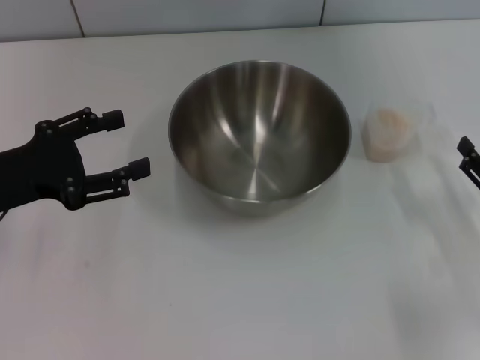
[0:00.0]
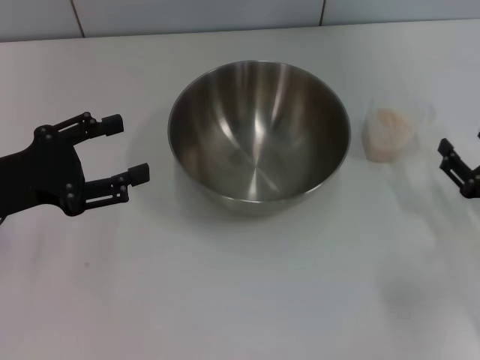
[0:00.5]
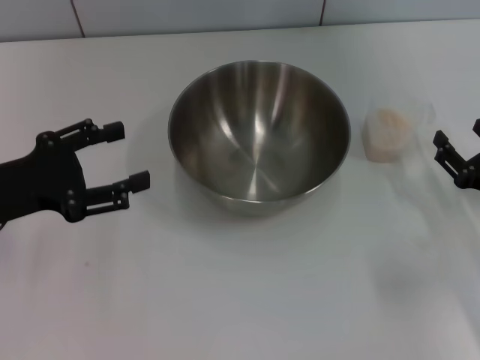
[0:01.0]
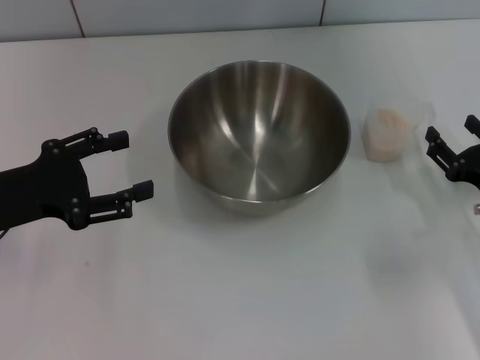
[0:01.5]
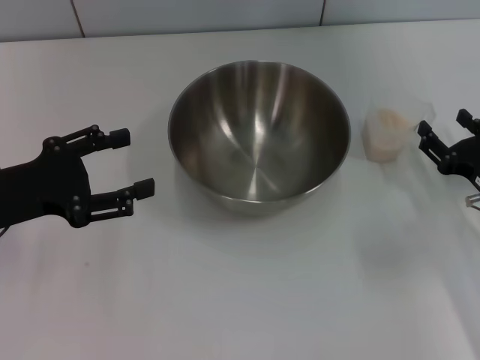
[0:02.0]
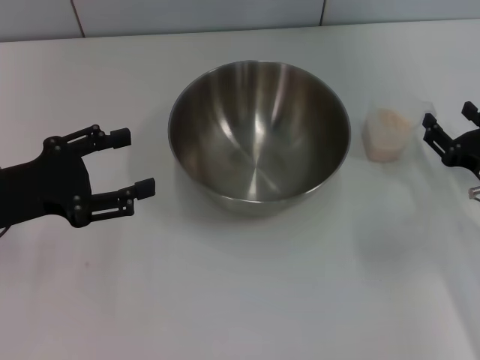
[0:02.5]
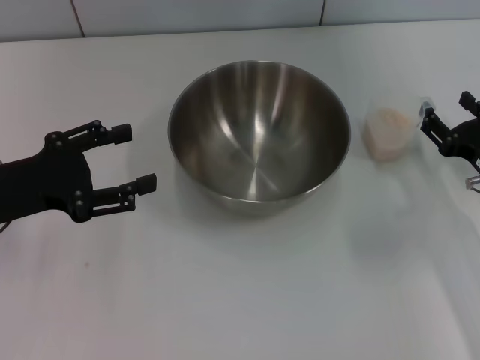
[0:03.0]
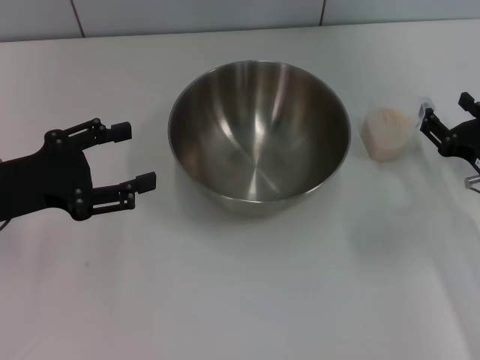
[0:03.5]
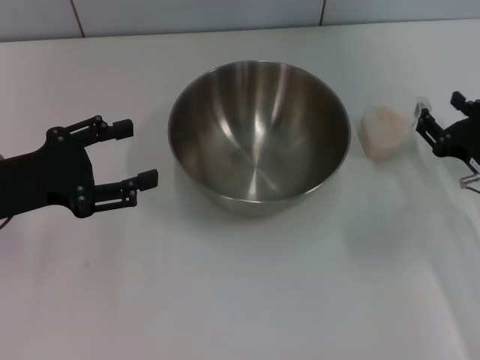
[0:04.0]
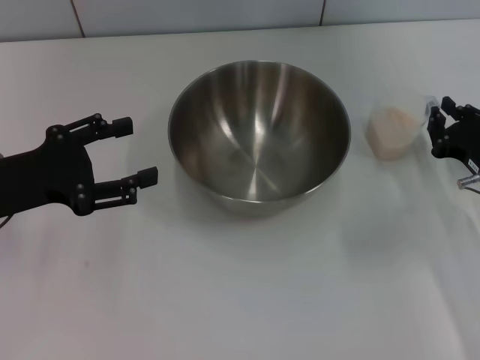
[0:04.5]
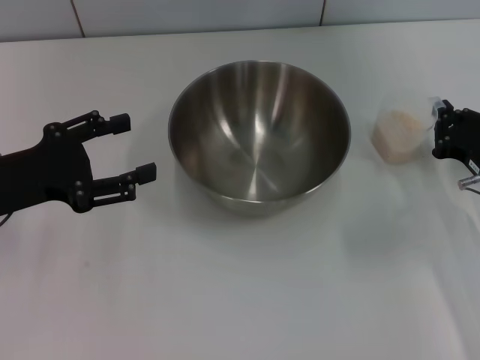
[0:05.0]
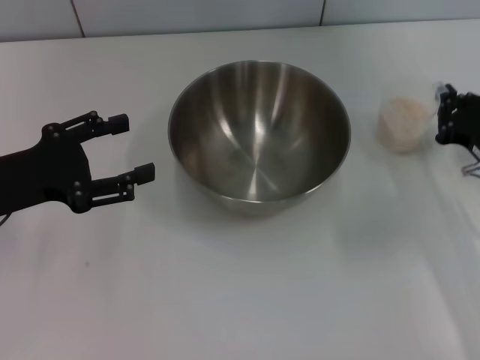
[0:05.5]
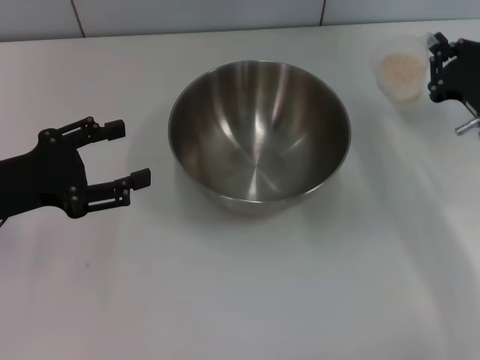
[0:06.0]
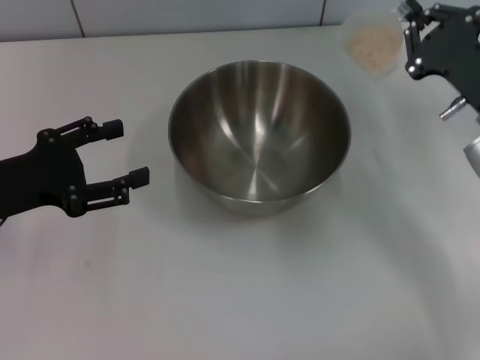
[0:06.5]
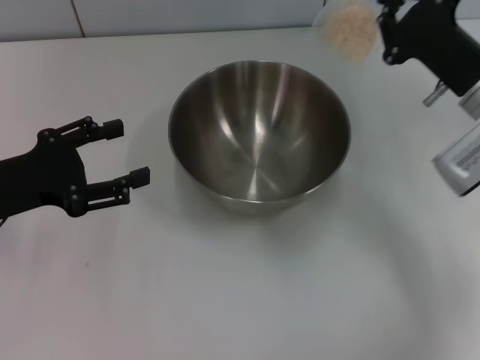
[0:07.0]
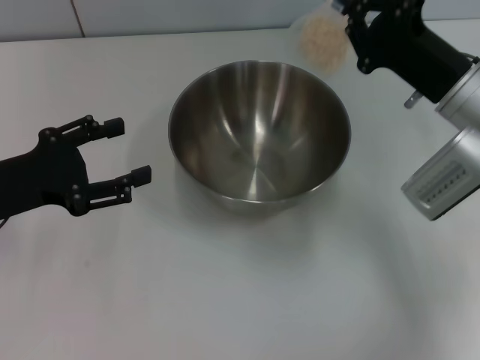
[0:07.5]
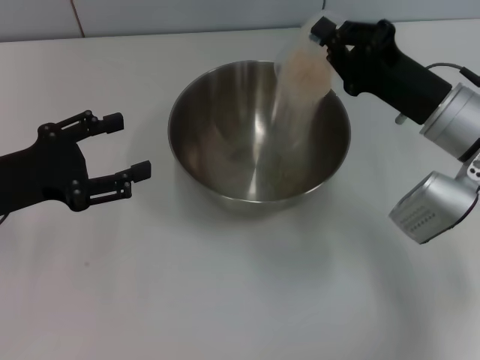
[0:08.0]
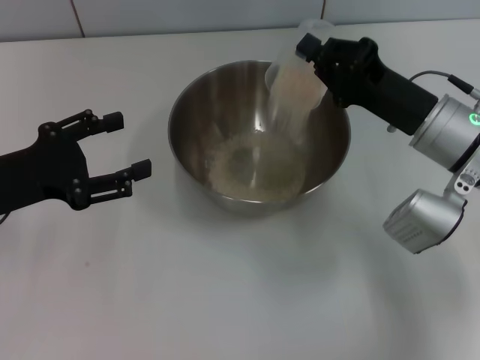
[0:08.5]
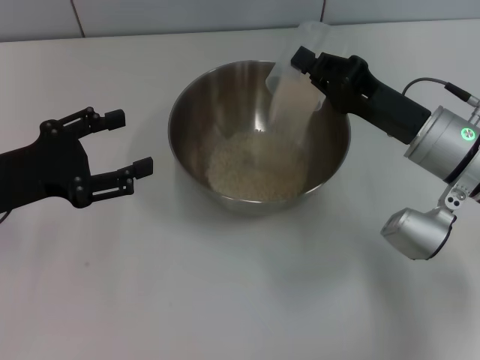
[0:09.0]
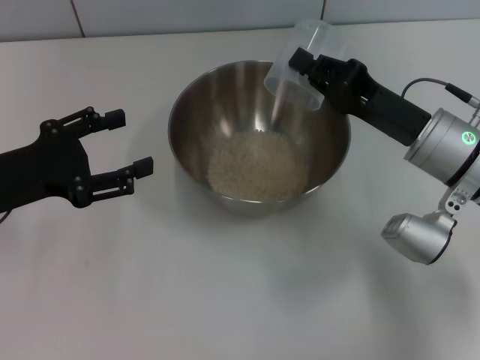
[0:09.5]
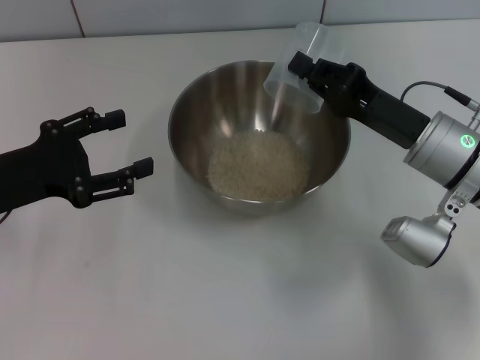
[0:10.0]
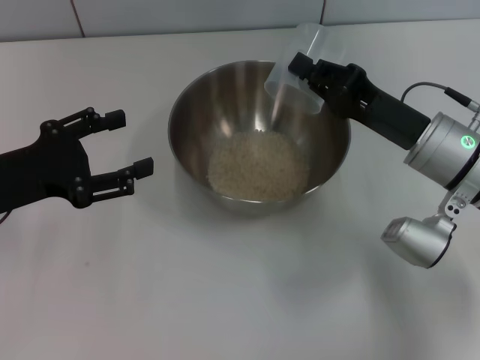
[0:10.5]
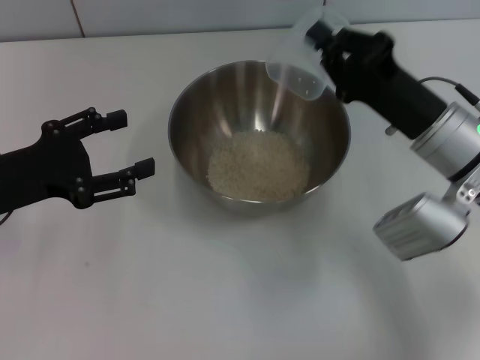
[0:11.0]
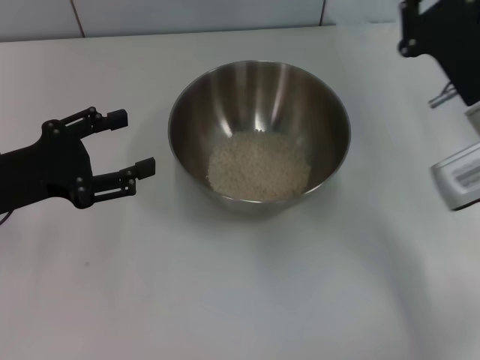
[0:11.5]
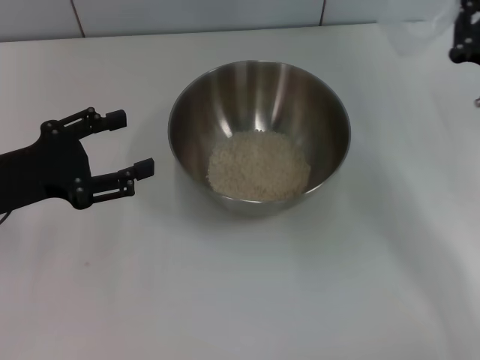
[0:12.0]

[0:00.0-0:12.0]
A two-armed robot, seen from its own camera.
Task of the whole recording: Place the bowl in the middle of the table with one hand and pour the rice from the grain cup into it with the other hand.
Step, 0:00.0 to 0:05.5: Pick up the cup with rice in it with the right gripper.
Step, 0:06.0 to 0:11.0: Pour the rice from the cup into the bowl with the right gripper.
0:00.0 to 0:02.0: The right gripper is displaced forward by roughly 5 cm.
0:02.0 to 0:04.0: The grippers move only a little.
0:04.0 to 0:06.0: The right gripper moves roughly 5 cm, and closes up.
0:06.0 to 0:08.0: The right gripper shifts some 5 cm to the left.
0:08.0 to 0:10.0: The grippers make only small movements.
0:10.0 to 0:12.0: The right gripper heads to the right, covering approximately 10 cm.

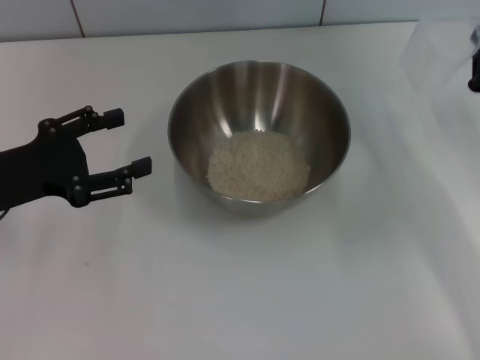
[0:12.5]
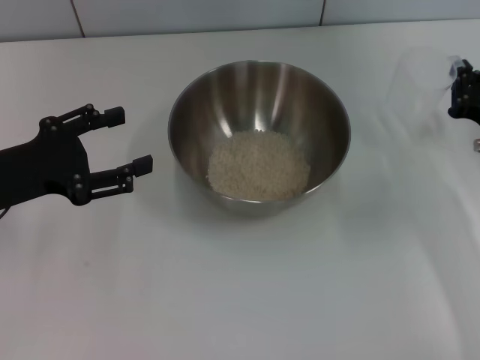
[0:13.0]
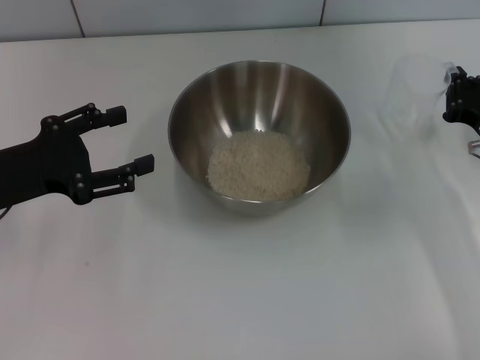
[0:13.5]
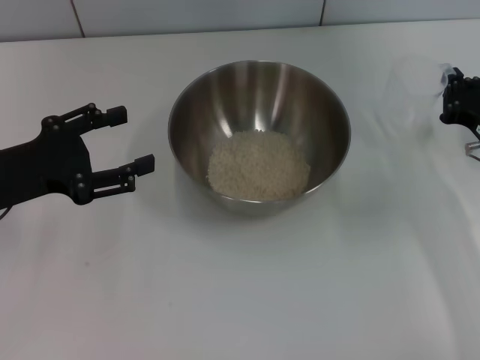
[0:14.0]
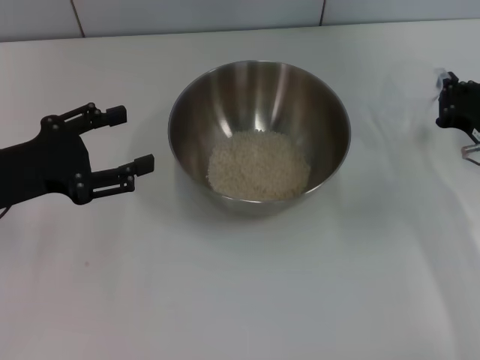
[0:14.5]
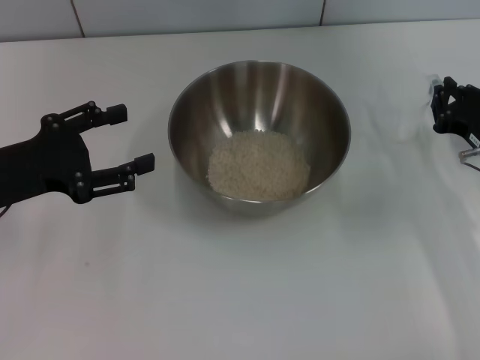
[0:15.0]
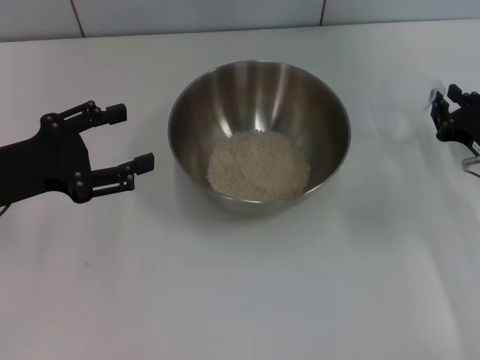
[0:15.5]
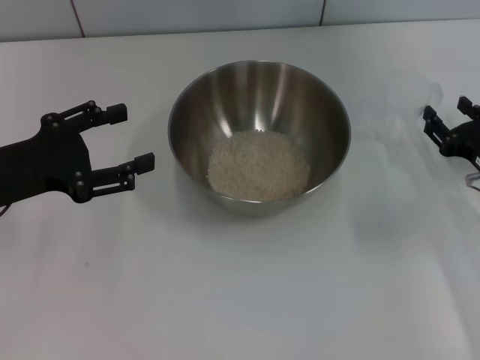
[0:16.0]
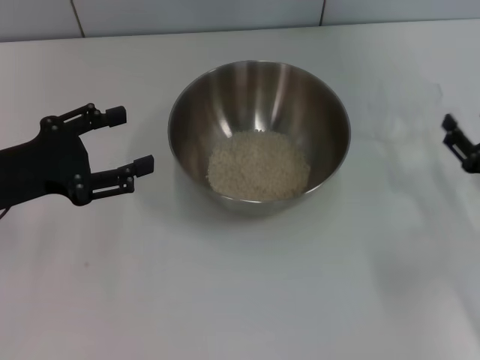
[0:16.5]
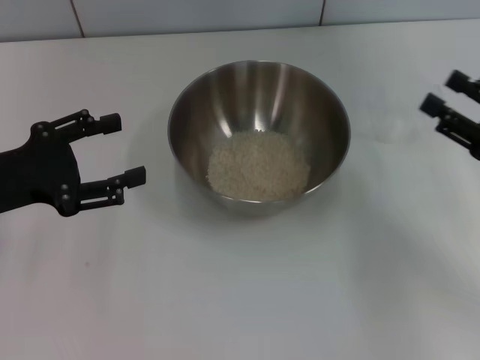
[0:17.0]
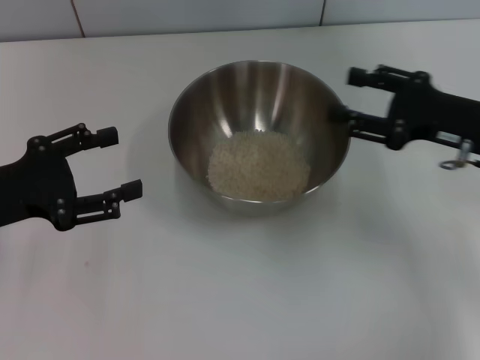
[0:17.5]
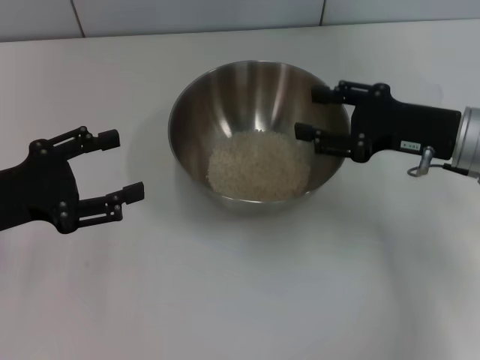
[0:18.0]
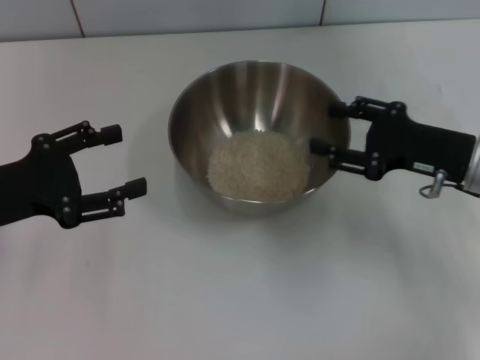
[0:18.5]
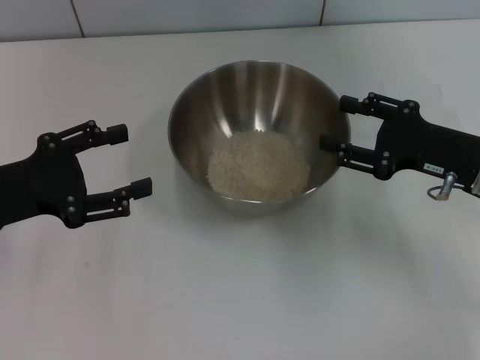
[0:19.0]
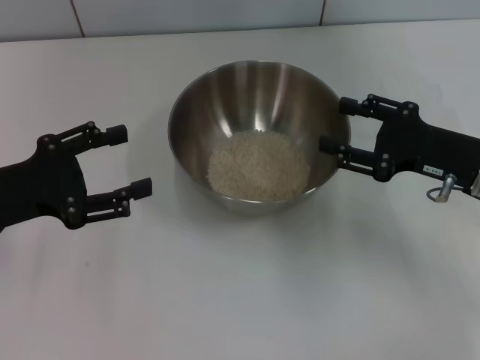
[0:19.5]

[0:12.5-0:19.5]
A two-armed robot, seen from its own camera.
Task of the whole recording: Place the bowl in the middle of the table with one hand and pour the rice from the grain cup into it with the other hand.
Step, 0:12.5 to 0:16.0: Place the cup on the table with the right gripper.
0:12.5 to 0:14.5: The grippers stay close to where they were, moving slightly.
0:14.5 to 0:16.0: The right gripper opens.
0:16.0 to 0:17.5: The right gripper travels upward by approximately 10 cm.
0:17.5 to 0:19.5: The grippers make only small movements.
